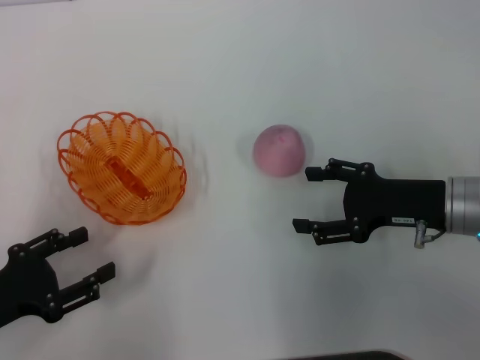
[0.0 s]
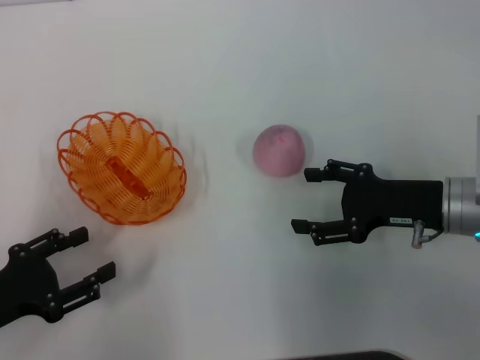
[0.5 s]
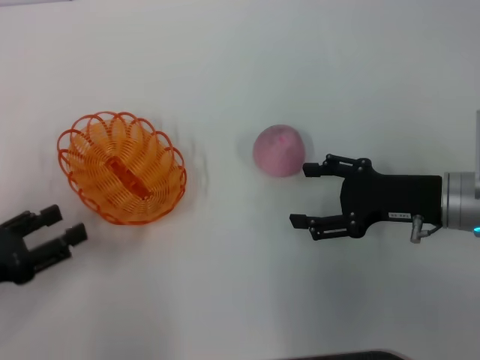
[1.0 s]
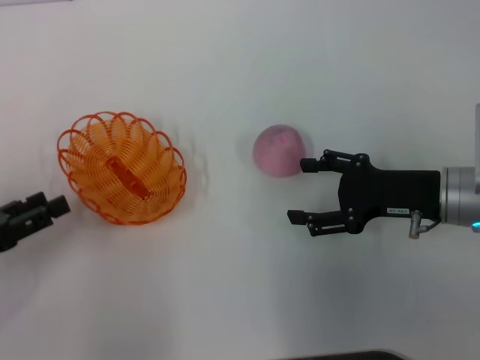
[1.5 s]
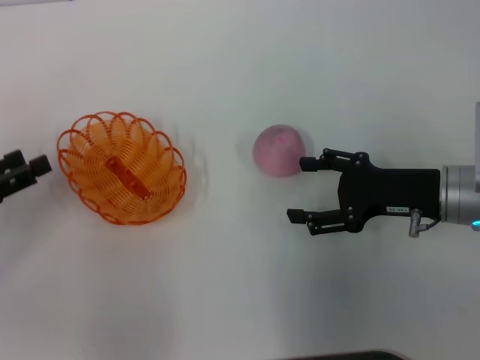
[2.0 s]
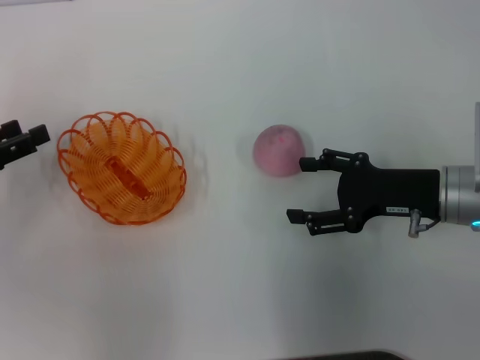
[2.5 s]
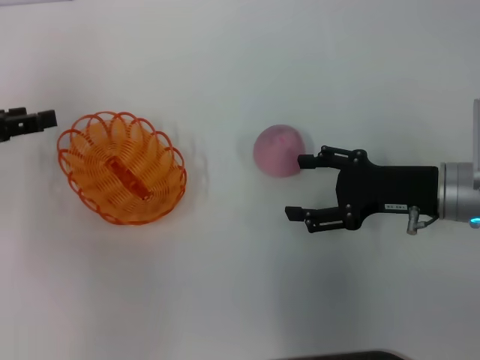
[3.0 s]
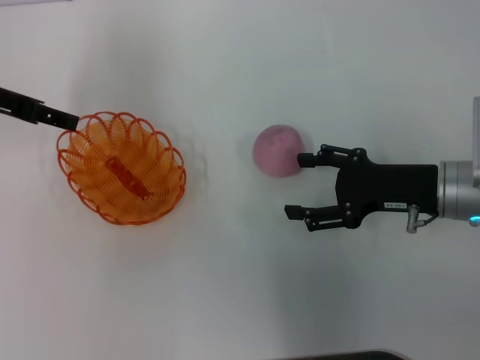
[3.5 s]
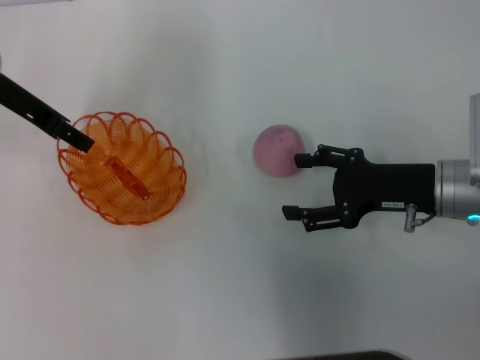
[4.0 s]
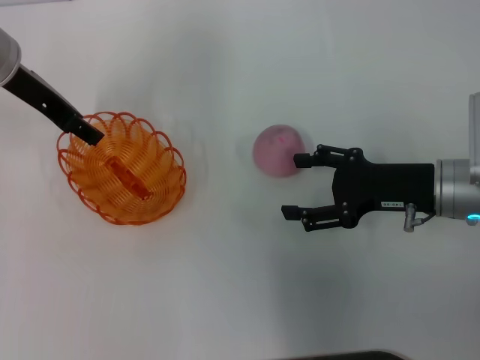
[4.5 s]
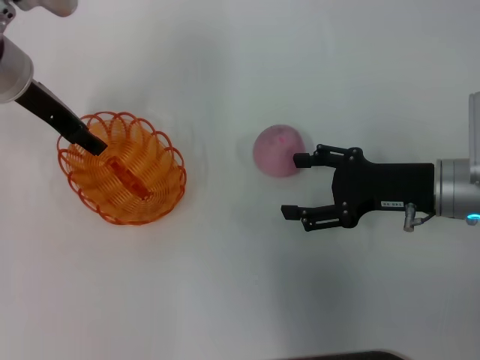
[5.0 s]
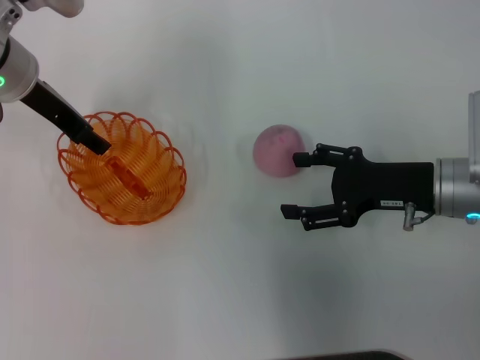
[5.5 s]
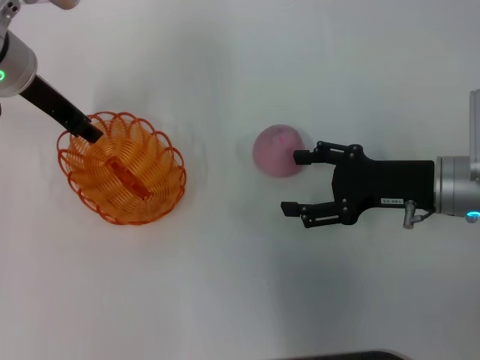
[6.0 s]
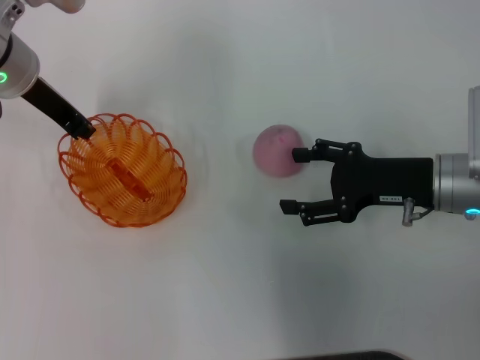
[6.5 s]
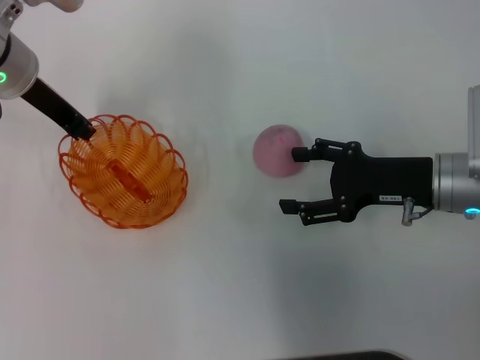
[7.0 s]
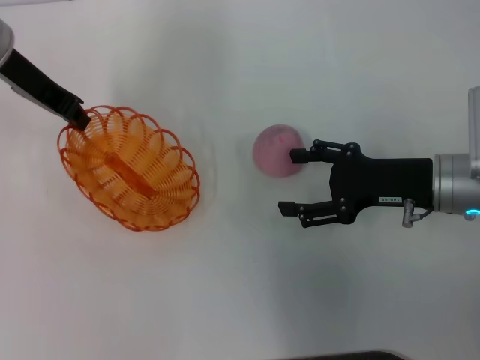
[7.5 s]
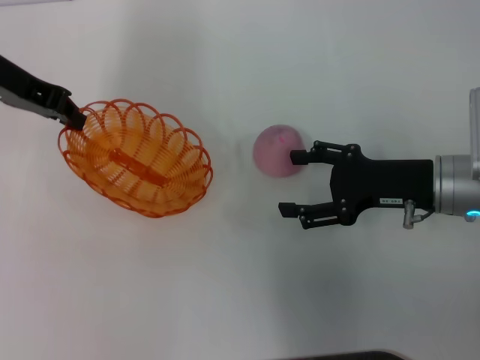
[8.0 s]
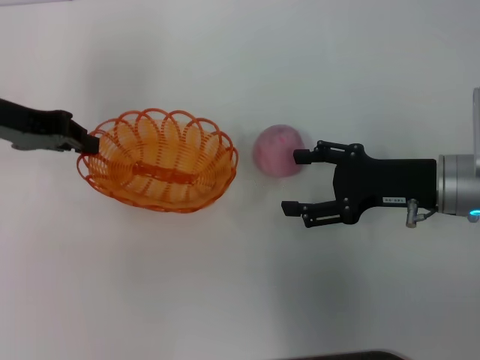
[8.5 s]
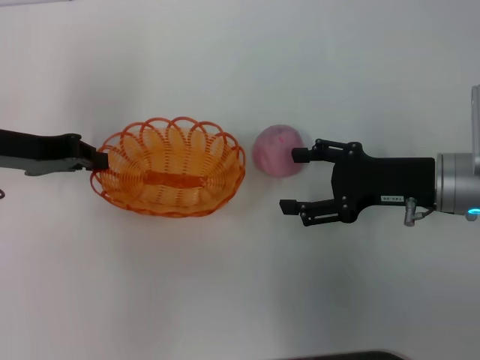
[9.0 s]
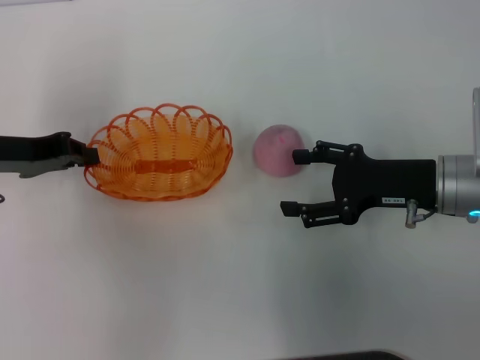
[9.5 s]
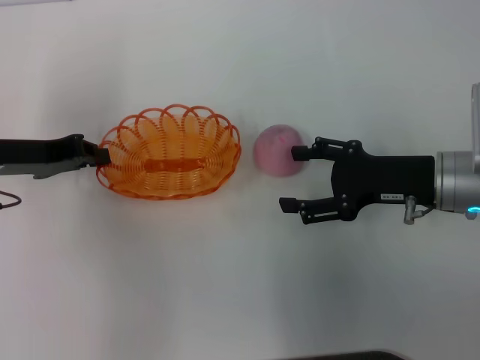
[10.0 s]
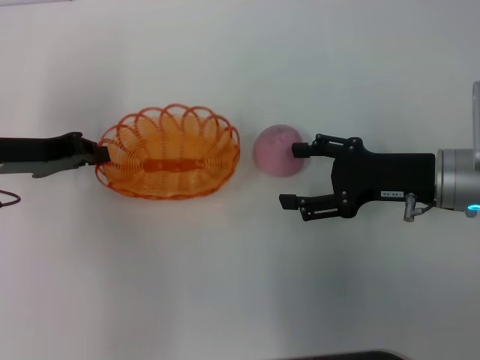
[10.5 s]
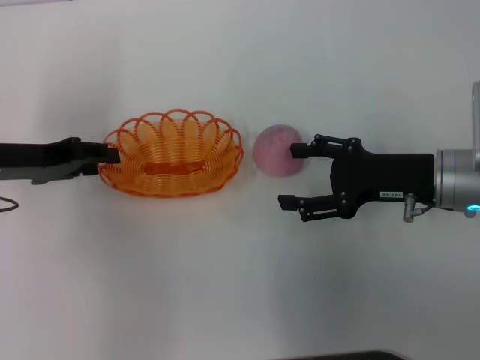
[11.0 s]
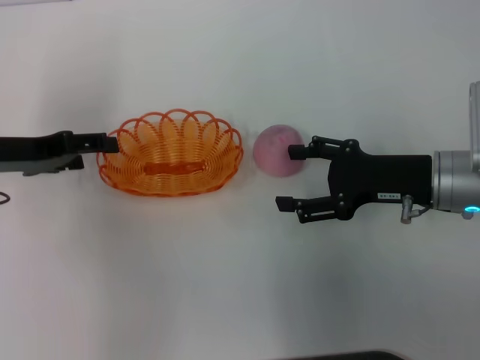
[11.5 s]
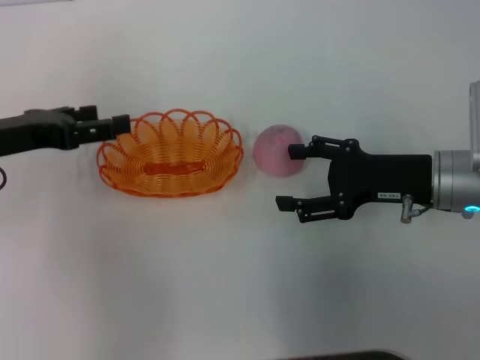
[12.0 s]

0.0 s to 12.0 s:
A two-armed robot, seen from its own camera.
Step, 0.0 to 7.5 s: Pick up the basket with the left gripper.
0.0 to 2.0 s: The left gripper moves forward, about 5 cm.
2.0 to 4.0 s: The left gripper shifts roughly 20 cm forward, to the right and upward.
4.0 to 6.0 s: The grippers move only a little.
6.0 to 8.0 s: The left gripper moves about 5 cm, and closes up.
8.0 to 10.0 s: The left gripper goes approximately 10 cm downward and backward.
10.0 to 12.0 s: The left gripper opens.

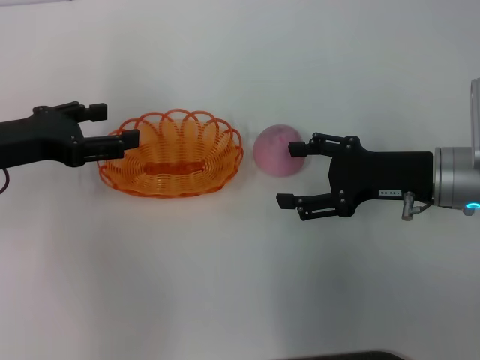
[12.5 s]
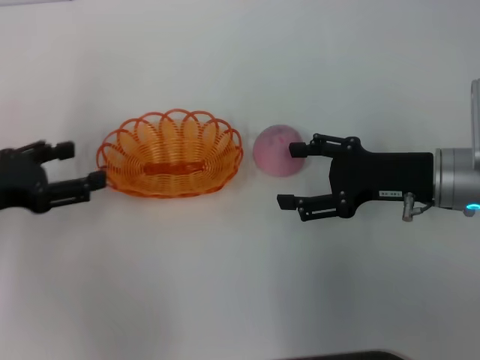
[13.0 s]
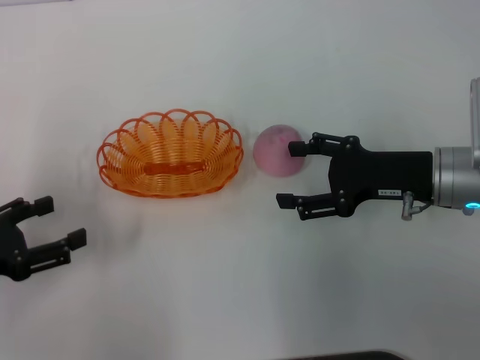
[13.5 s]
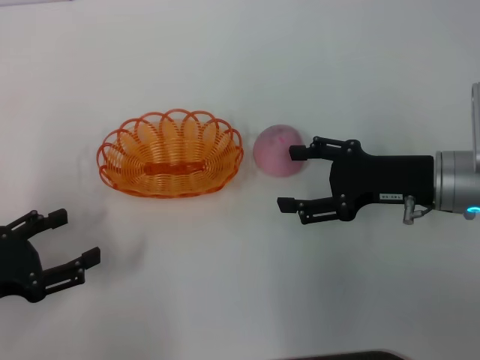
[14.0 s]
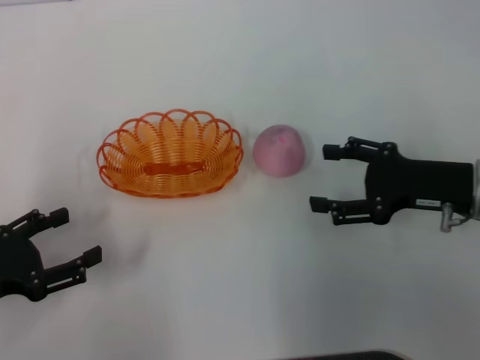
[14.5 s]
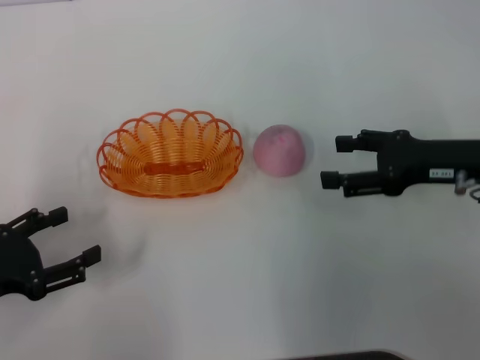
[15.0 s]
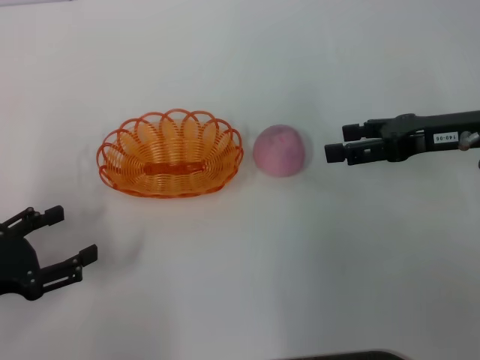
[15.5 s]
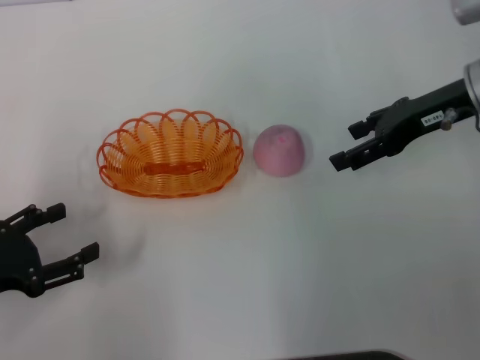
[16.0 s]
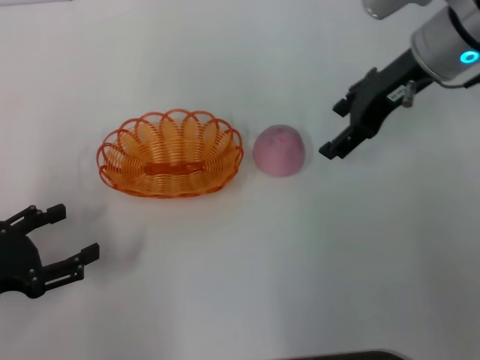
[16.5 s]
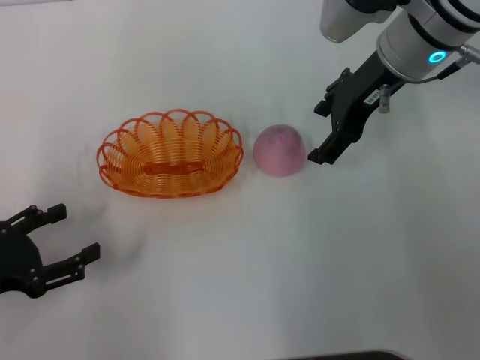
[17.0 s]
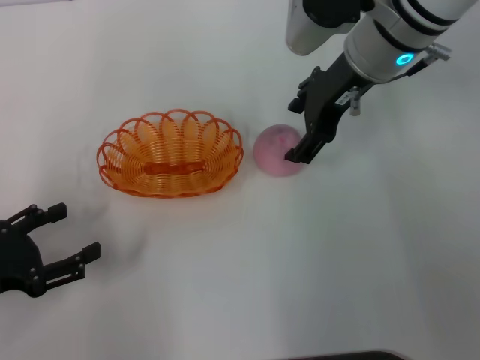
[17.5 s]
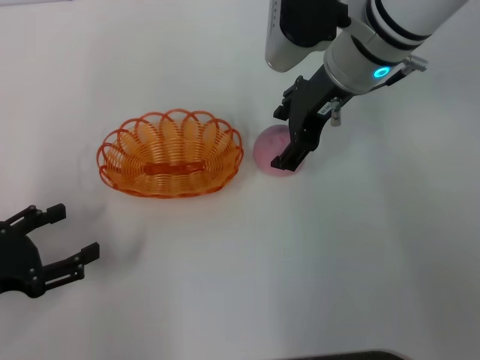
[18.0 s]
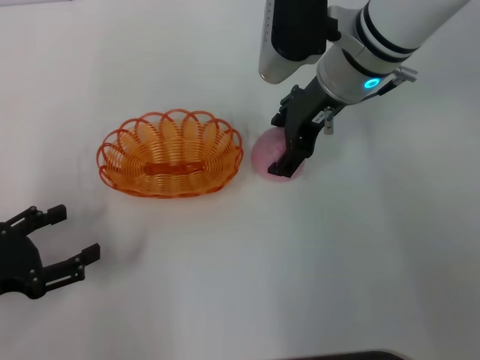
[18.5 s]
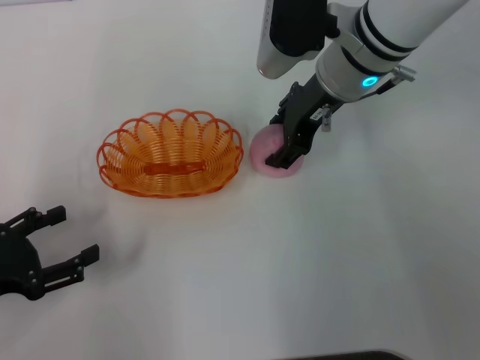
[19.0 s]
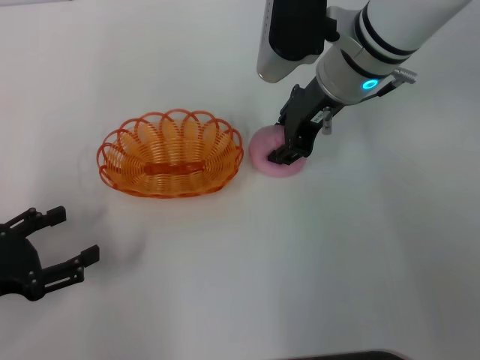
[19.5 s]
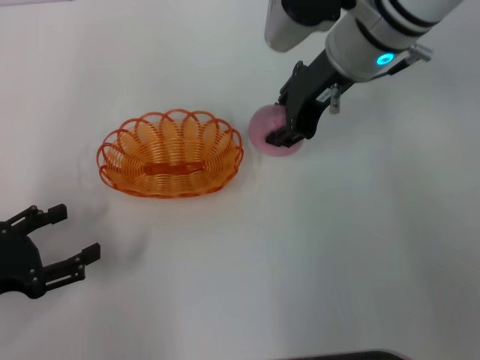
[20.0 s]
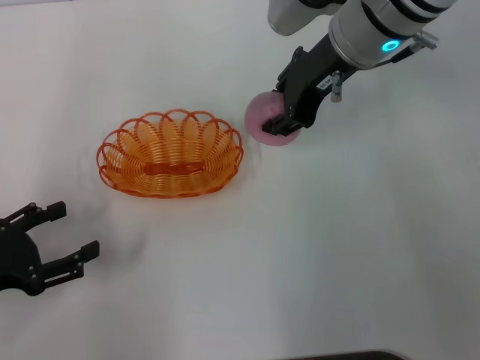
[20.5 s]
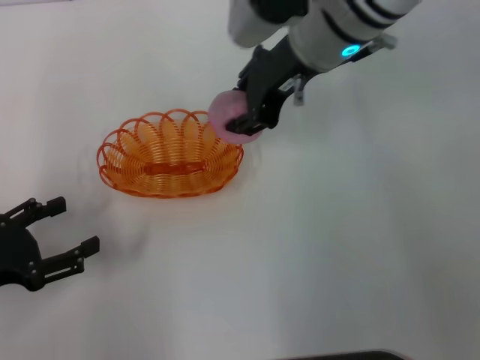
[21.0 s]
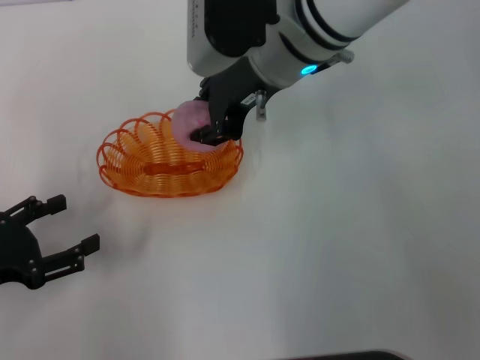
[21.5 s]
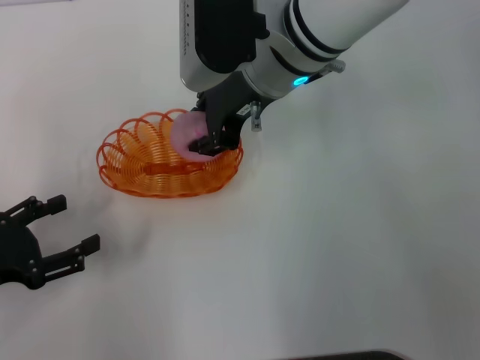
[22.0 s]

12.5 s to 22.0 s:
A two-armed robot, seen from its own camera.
Step, 13.5 to 20.0 s: Pick up the peach with the right gripper.
12.5 to 14.5 s: The left gripper heads backward and downward, covering approximately 15 cm.
14.5 to 16.5 s: The right gripper moves forward, upward and to the left, approximately 20 cm.
16.5 to 18.0 s: The right gripper goes about 10 cm to the left.
18.0 to 20.0 s: The right gripper closes its fingers.
20.0 to 22.0 s: The right gripper is displaced to the left by some 5 cm.

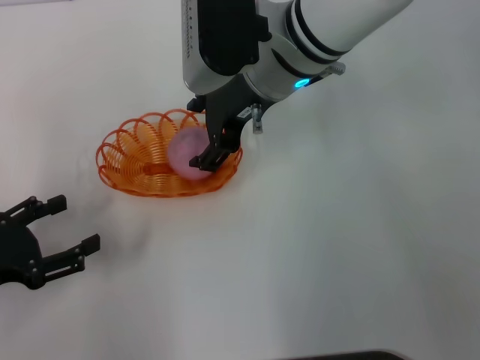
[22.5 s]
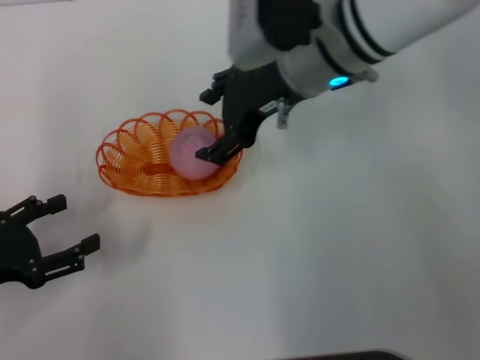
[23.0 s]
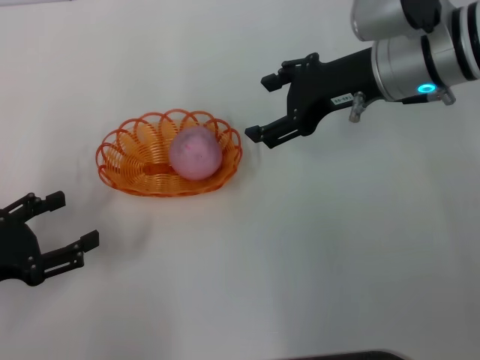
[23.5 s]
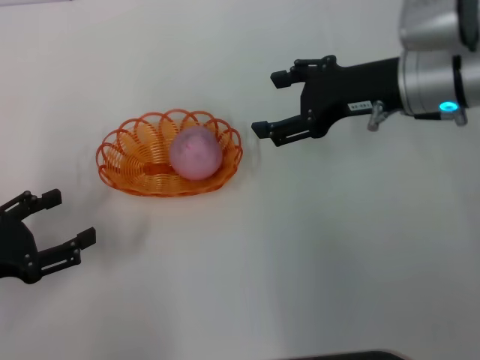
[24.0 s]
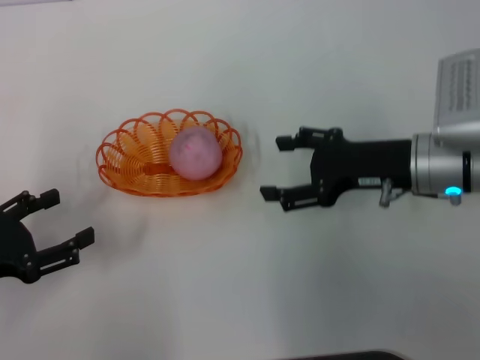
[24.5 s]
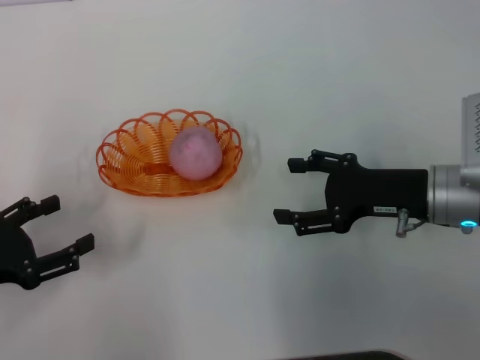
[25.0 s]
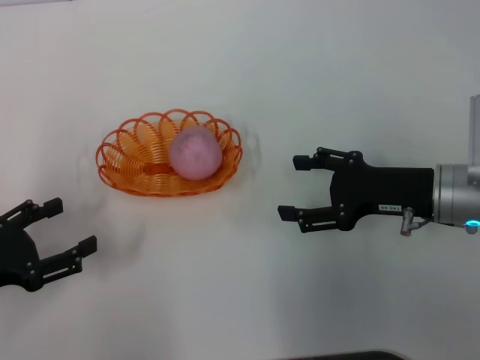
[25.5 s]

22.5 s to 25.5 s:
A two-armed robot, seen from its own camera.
22.5 to 24.0 s: The right gripper heads to the right, covering some 15 cm, and opens its fingers.
24.0 to 25.5 s: The right gripper goes approximately 10 cm downward and backward.
